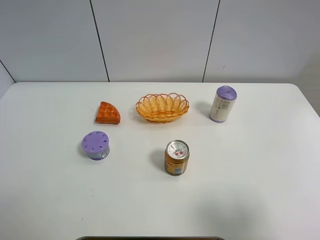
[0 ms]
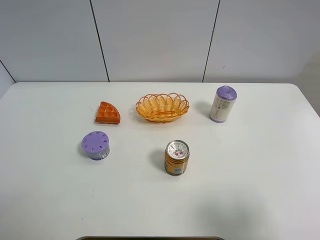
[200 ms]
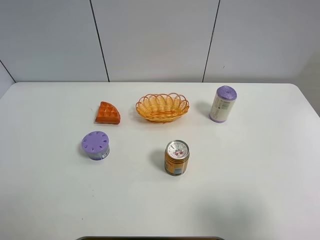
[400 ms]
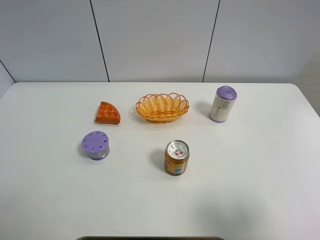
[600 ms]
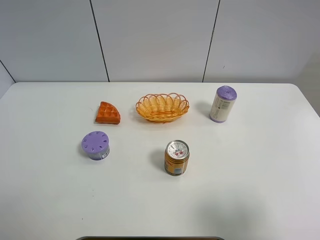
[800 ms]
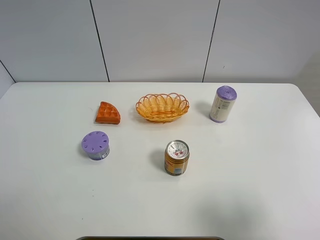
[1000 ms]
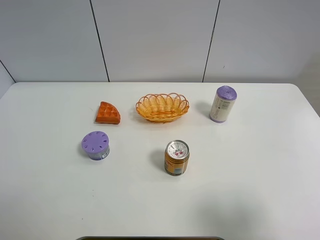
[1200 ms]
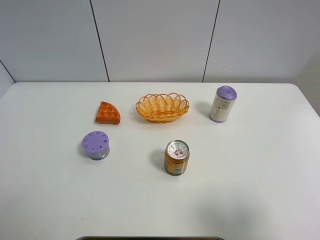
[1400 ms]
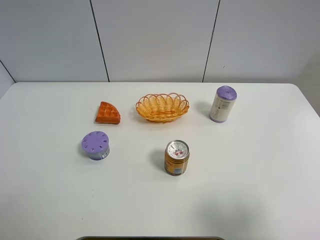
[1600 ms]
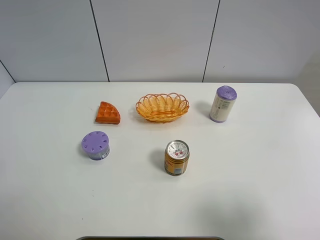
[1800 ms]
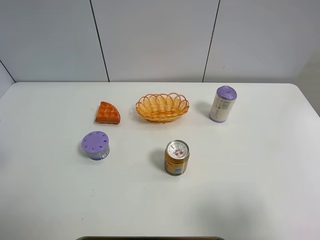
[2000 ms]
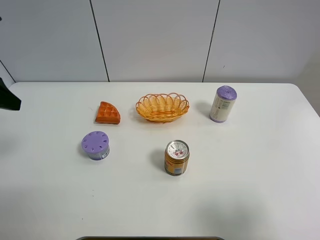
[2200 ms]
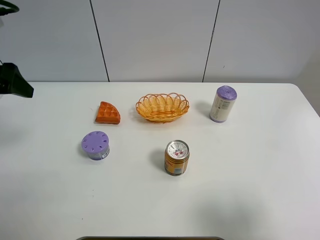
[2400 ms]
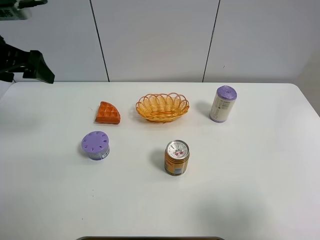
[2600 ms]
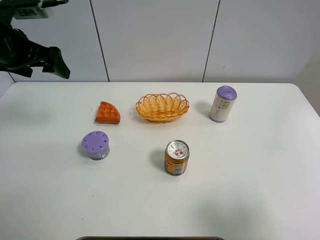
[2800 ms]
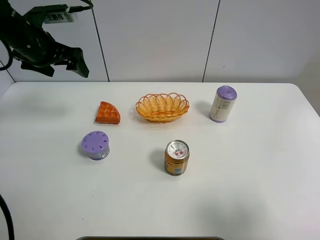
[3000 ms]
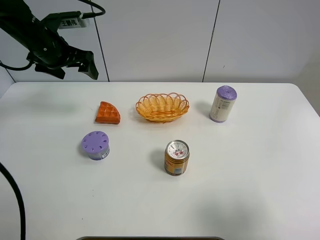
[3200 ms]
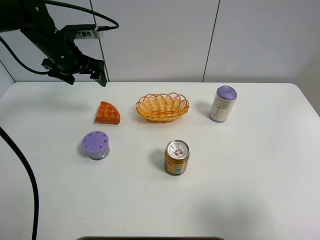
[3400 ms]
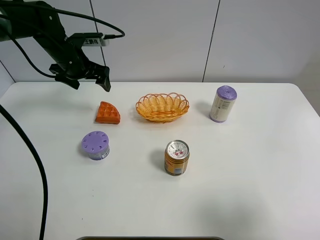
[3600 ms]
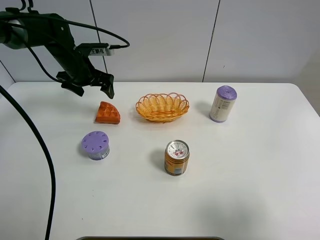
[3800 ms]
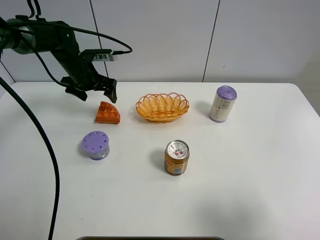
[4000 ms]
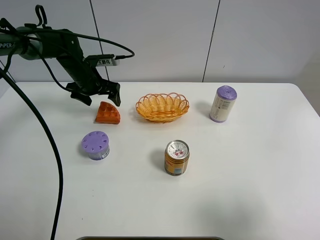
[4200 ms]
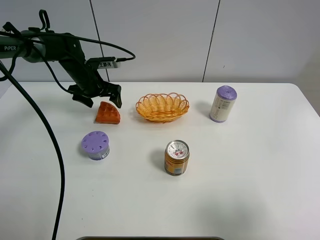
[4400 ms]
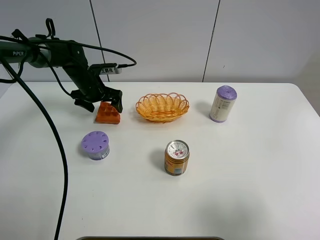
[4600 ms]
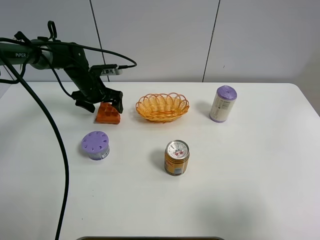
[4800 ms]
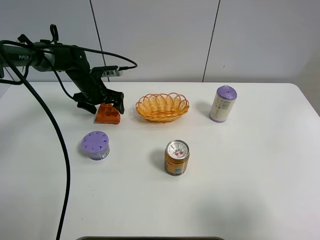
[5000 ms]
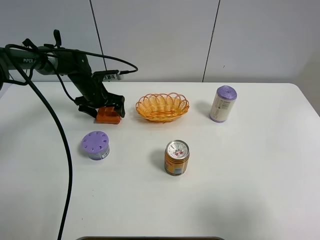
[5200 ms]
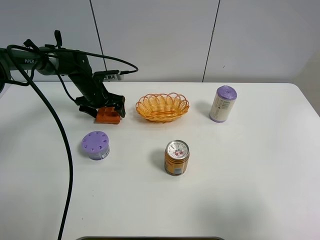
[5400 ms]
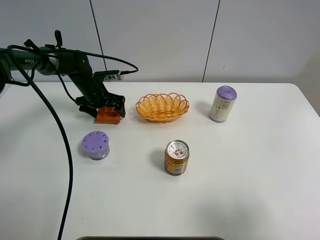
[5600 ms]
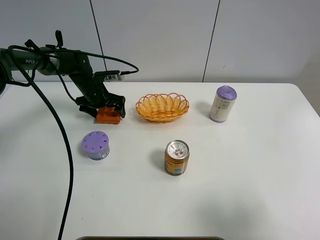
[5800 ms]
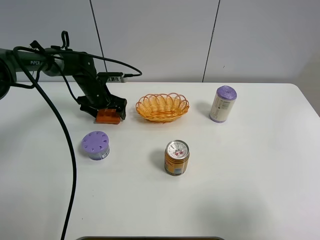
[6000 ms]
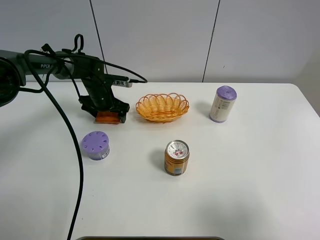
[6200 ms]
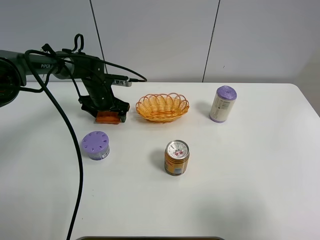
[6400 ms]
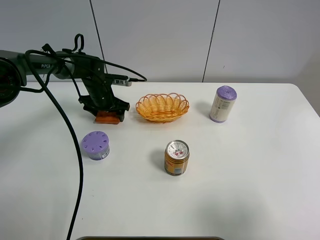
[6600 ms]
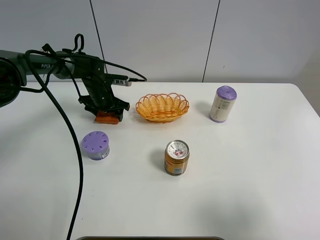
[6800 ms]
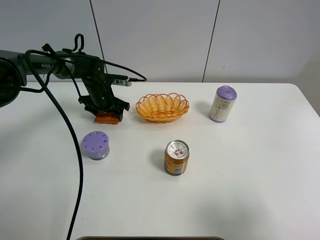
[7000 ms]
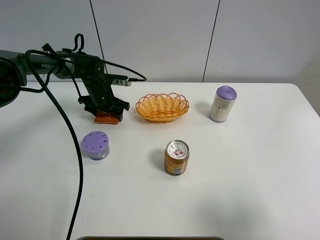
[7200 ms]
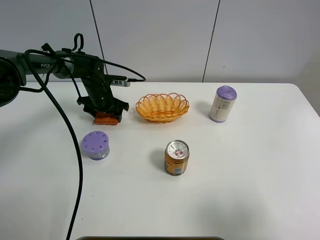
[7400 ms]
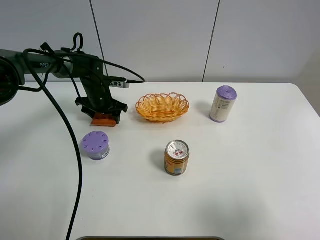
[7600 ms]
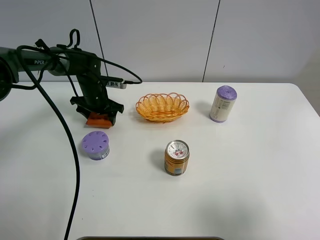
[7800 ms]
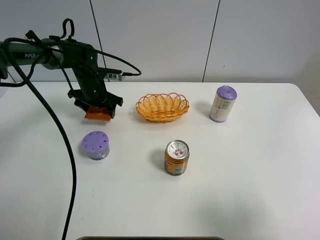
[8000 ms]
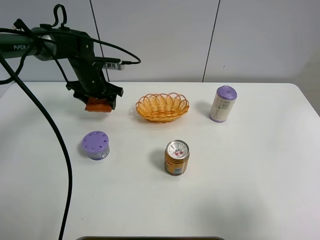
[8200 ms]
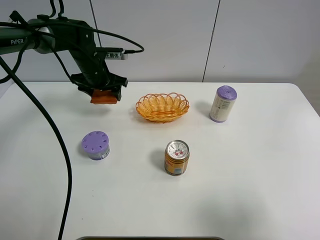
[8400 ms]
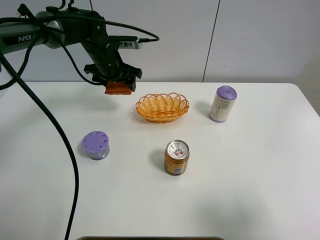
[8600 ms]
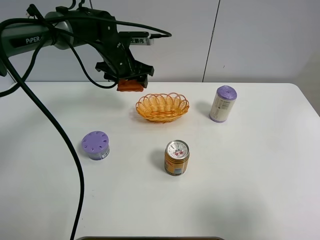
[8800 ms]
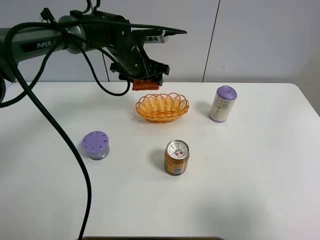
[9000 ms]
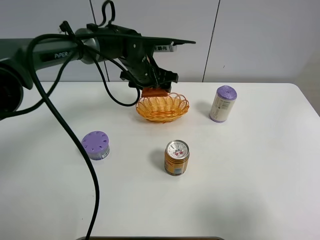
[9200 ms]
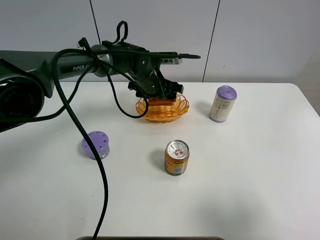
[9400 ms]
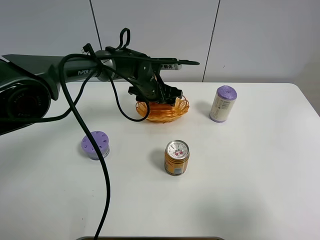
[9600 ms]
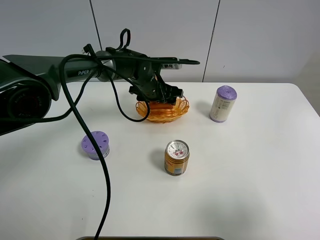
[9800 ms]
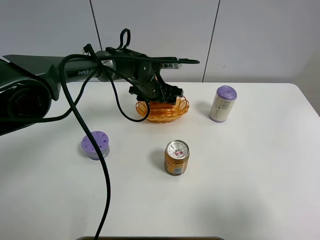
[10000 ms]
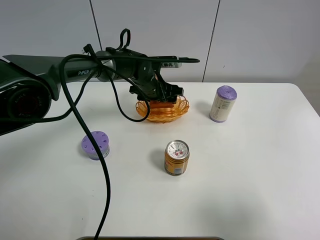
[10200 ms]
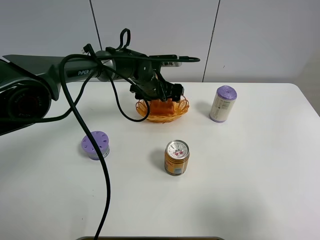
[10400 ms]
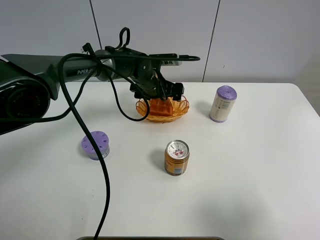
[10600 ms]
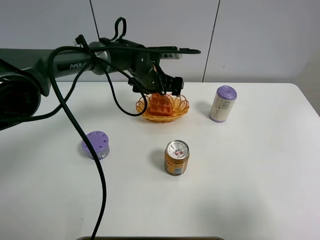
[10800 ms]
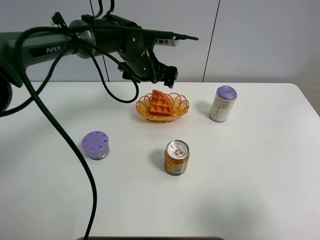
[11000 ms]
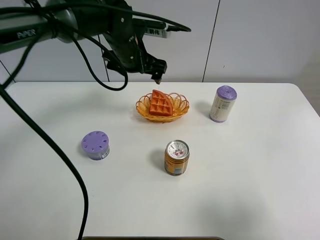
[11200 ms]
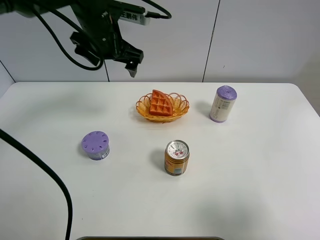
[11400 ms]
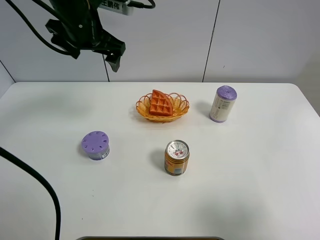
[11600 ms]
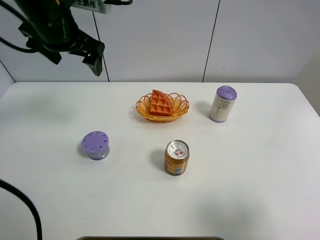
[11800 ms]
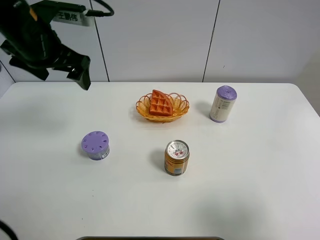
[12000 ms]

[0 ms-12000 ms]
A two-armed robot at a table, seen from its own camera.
Task of the whole recording: Put the bakery in the basket.
1600 ms to 3000 ms: The left gripper heads forward, covering some 35 cm.
3000 ms to 4400 ms: The left gripper heads downward and forward, covering roughly 15 cm.
4400 ms to 6000 ms: The left gripper goes about 5 cm downward.
6000 ms to 7600 ms: The left gripper closes up.
7600 ms to 9000 ms: The left gripper travels upward and to the right by approximately 15 cm.
9000 ms to 10400 ms: The left gripper heads downward, covering some 5 cm, and opens its fingers.
10400 ms to 12000 ms: The left gripper shifts roughly 30 cm upward, to the left and backward.

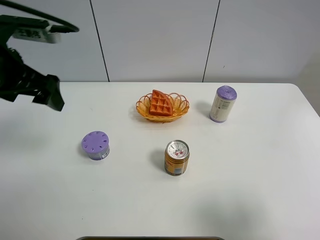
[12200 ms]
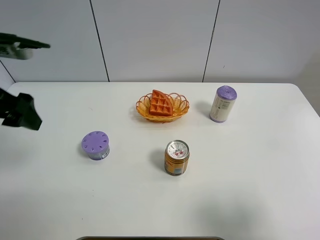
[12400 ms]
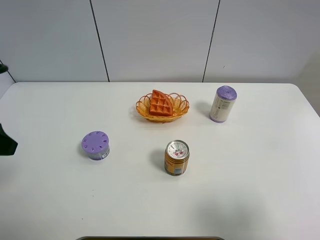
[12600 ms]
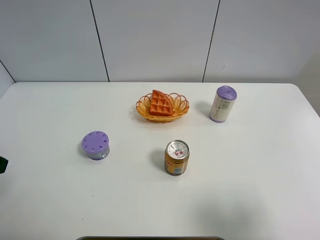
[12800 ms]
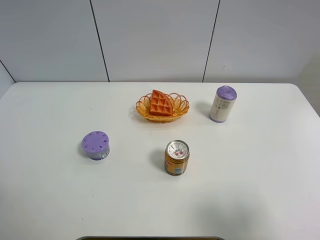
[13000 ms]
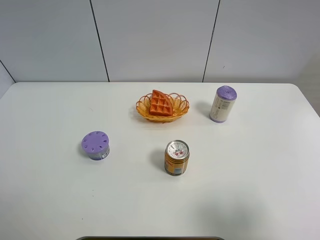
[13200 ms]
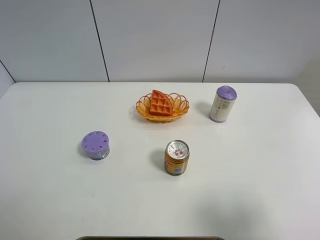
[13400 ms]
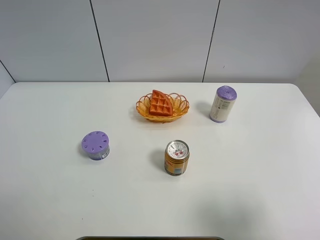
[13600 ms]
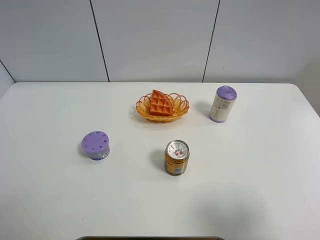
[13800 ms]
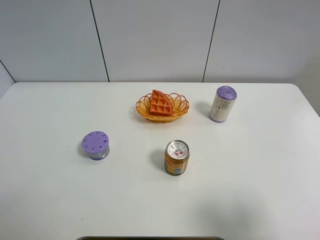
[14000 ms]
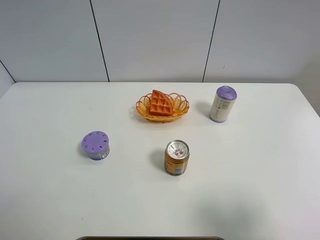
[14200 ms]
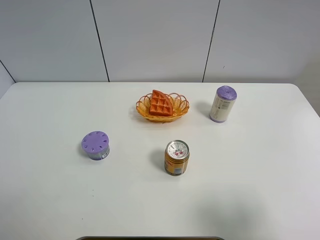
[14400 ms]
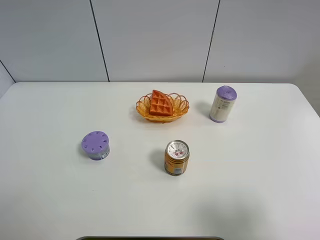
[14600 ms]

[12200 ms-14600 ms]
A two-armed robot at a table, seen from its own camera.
Task of the whole recording: Put the bakery in the basket.
12200 ms to 13400 ms: The left gripper goes roughly 25 cm backward and to the left.
